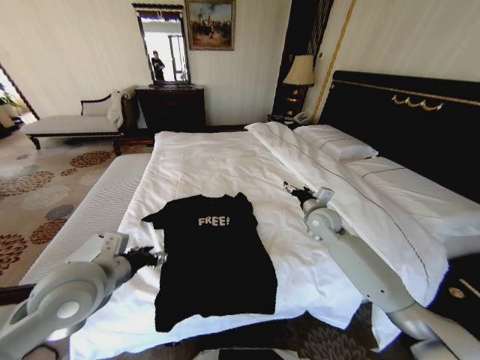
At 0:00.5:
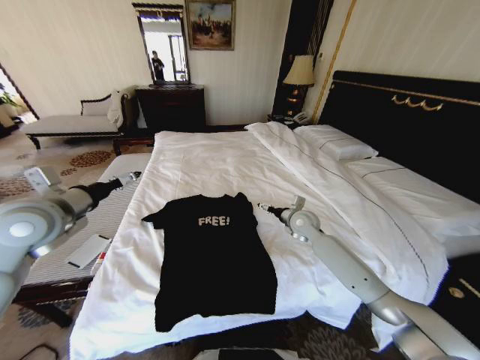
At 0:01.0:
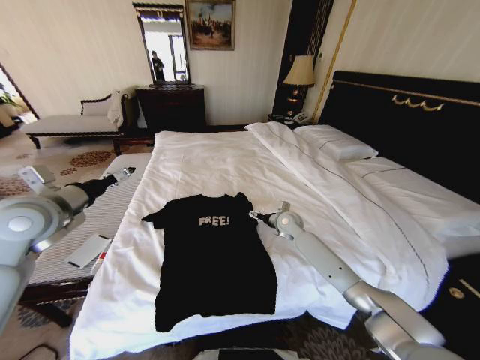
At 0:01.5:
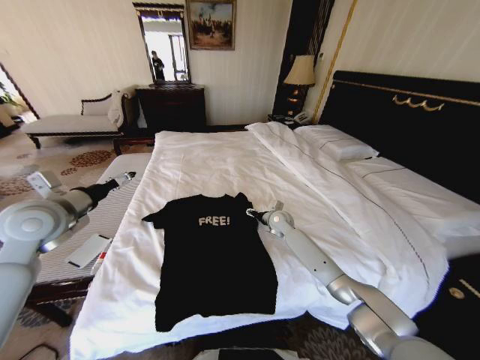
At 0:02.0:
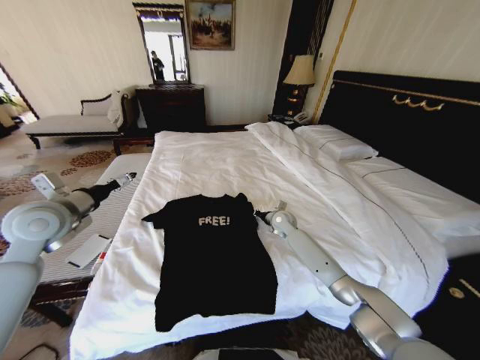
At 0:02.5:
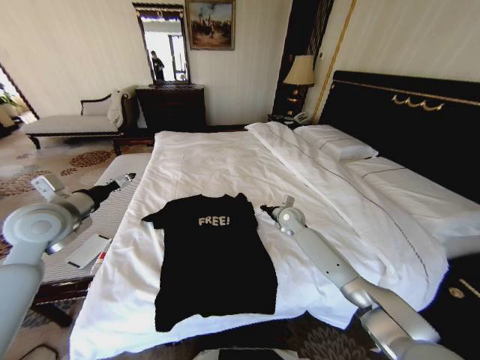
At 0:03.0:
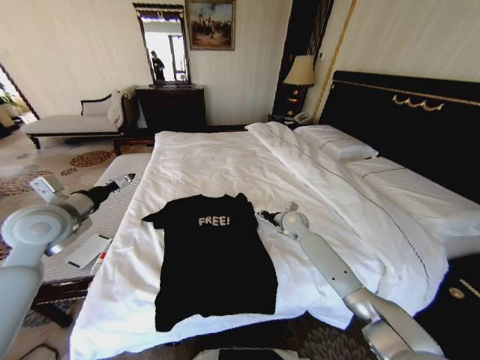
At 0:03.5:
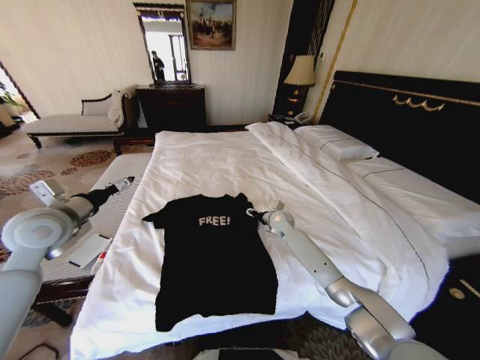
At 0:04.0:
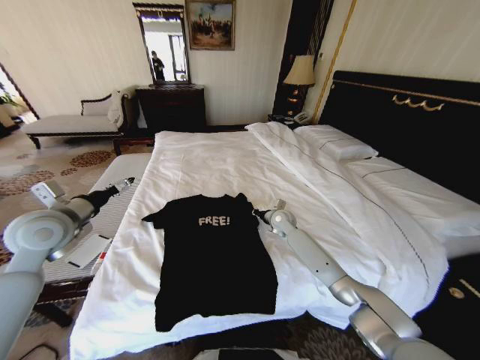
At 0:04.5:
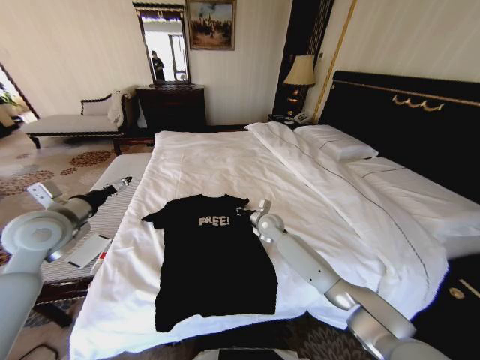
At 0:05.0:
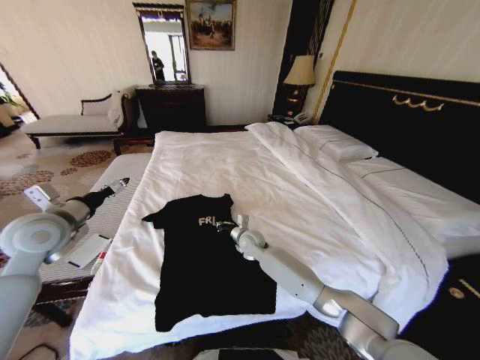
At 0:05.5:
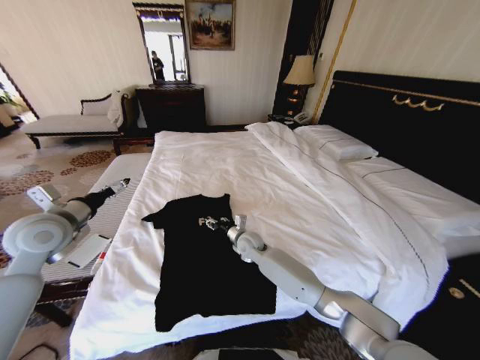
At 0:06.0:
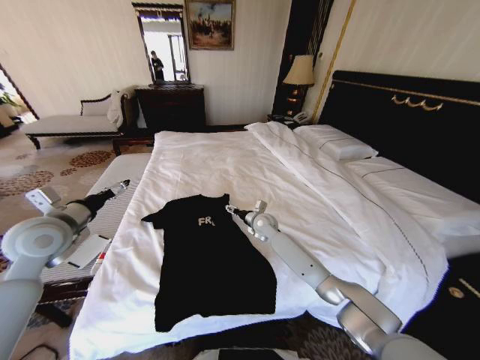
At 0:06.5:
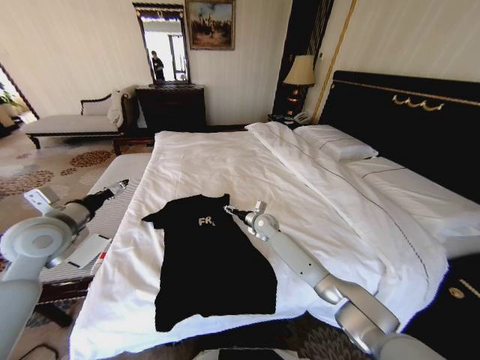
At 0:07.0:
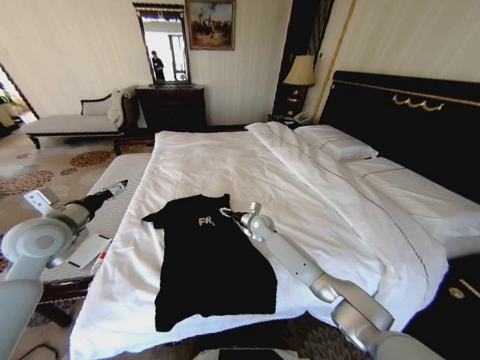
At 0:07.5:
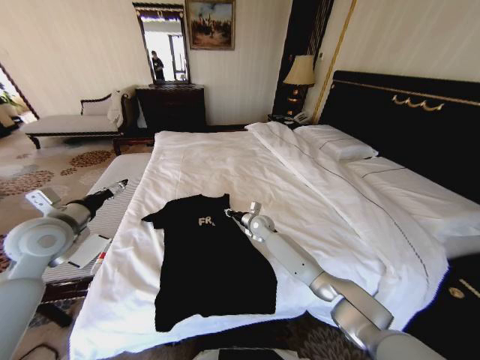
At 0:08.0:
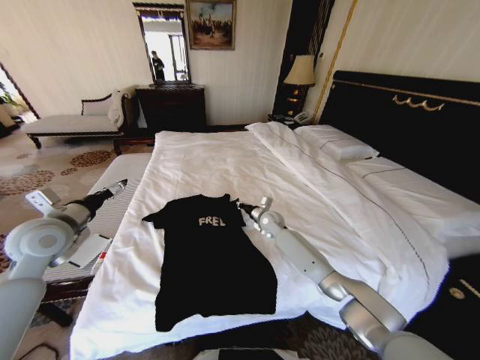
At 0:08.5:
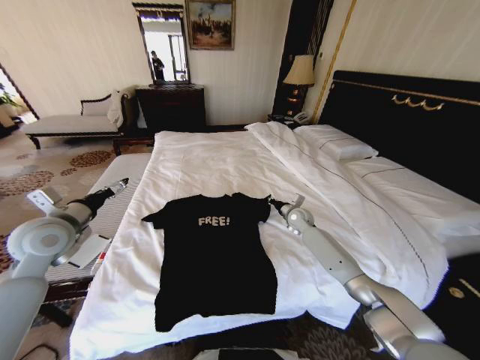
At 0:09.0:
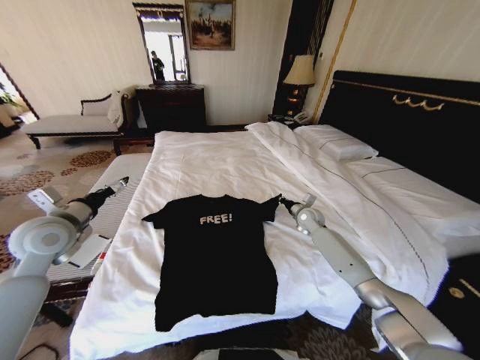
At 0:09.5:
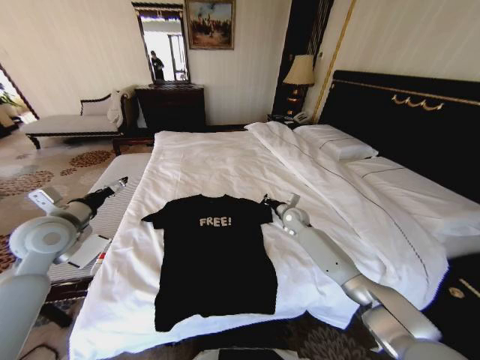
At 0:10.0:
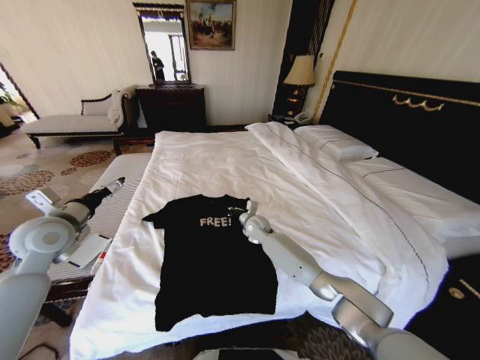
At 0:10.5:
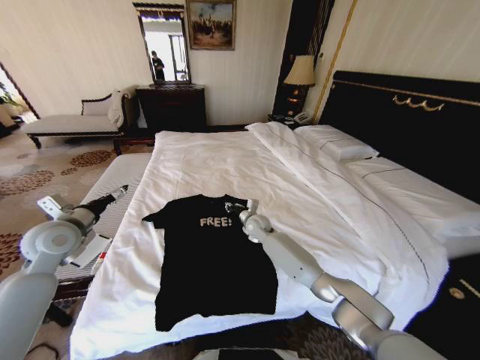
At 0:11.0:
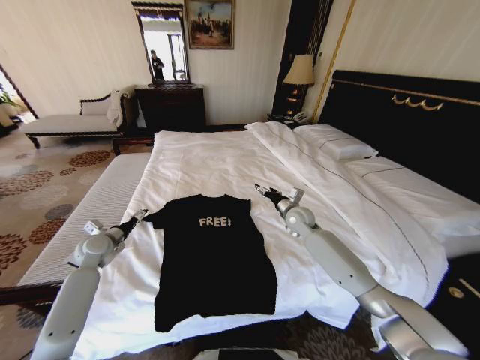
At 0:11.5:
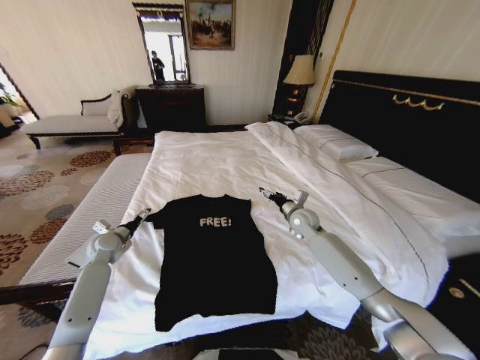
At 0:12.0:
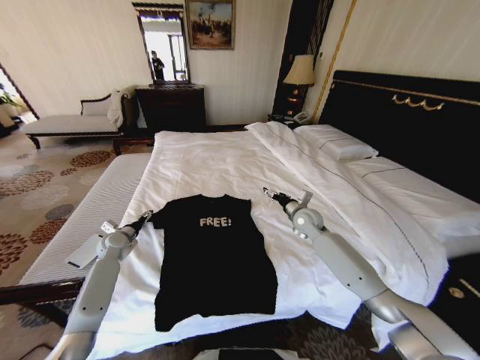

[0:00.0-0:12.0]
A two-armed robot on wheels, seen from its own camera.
Task of the whole recording: Fold the clothes on the bed.
0:00.0 to 0:02.0: The left gripper shifts roughly 15 cm to the left and forward, and opens. The right gripper shifts some 15 cm downward, to the left and forward, and closes its fingers.
0:04.0 to 0:06.0: The right gripper goes about 5 cm to the left, and opens.
0:06.0 to 0:08.0: The right gripper closes.
0:08.0 to 0:10.0: The right gripper goes to the right and returns, about 15 cm each way.
0:10.0 to 0:12.0: The right gripper travels to the right by approximately 15 cm, and opens up, while the left gripper heads downward and forward, covering about 25 cm.

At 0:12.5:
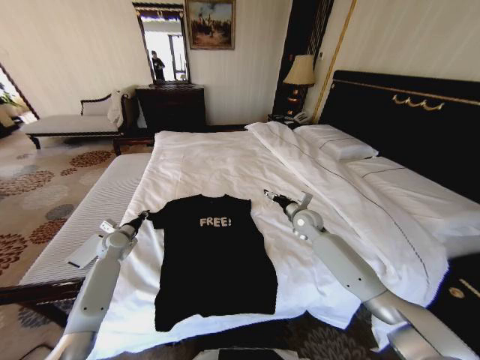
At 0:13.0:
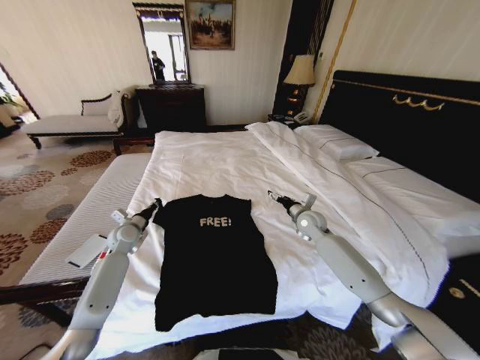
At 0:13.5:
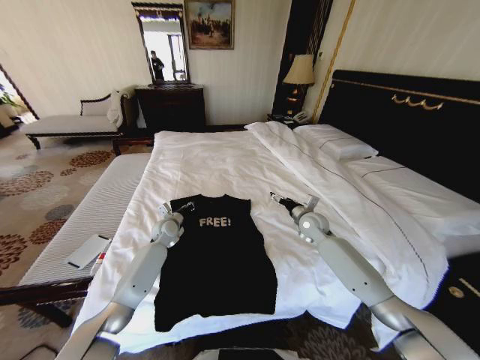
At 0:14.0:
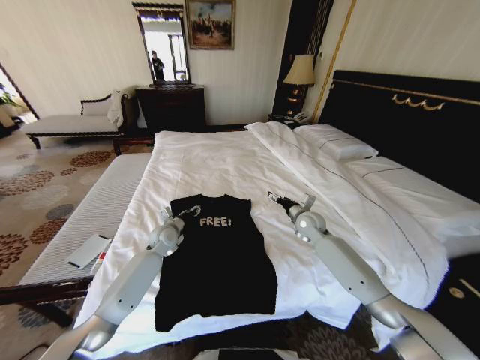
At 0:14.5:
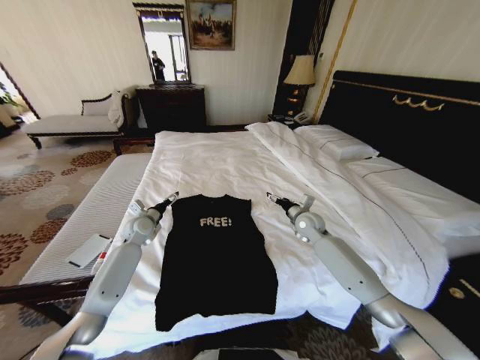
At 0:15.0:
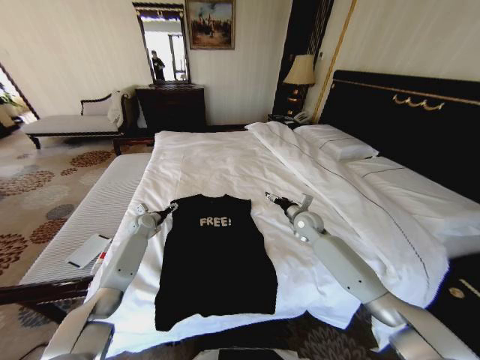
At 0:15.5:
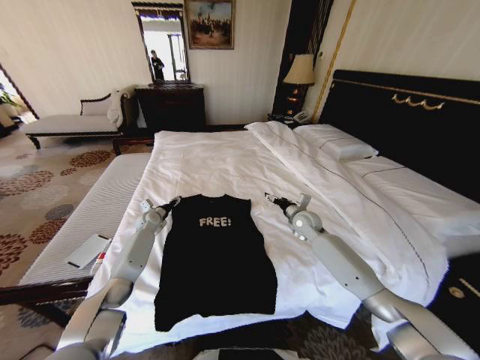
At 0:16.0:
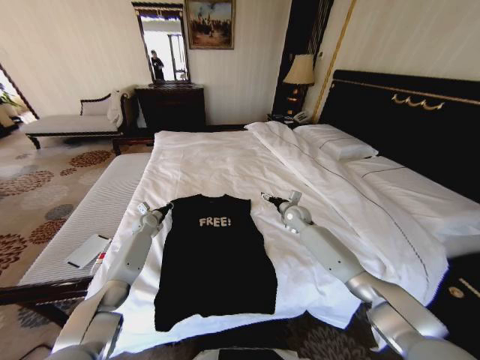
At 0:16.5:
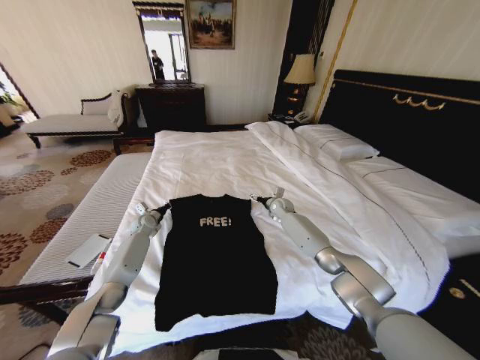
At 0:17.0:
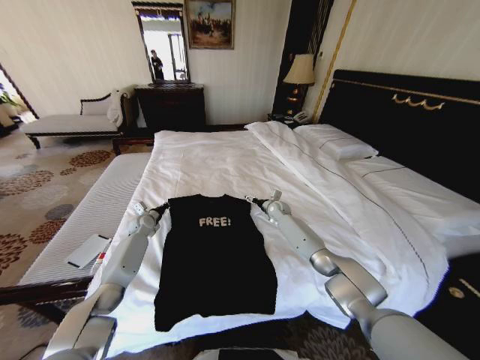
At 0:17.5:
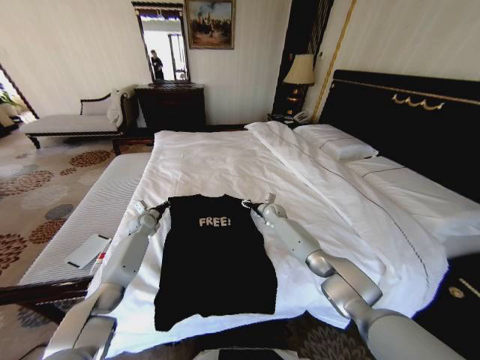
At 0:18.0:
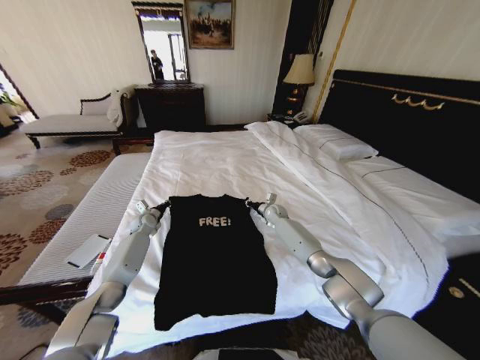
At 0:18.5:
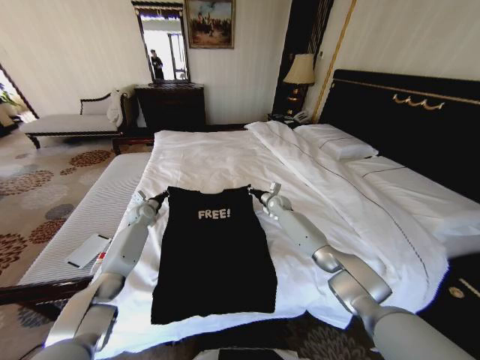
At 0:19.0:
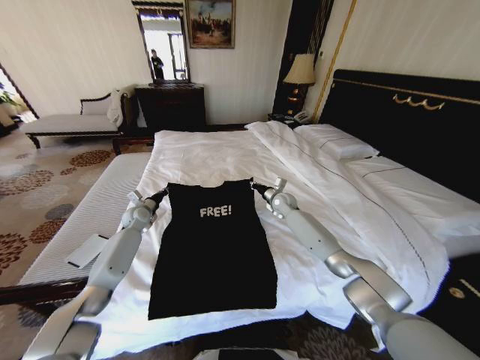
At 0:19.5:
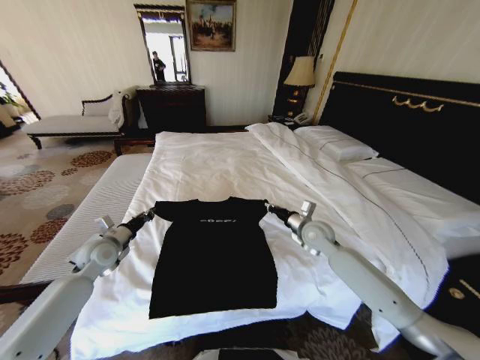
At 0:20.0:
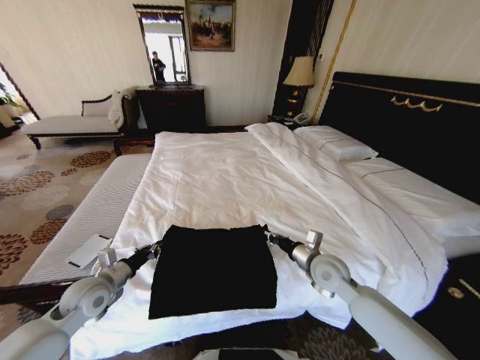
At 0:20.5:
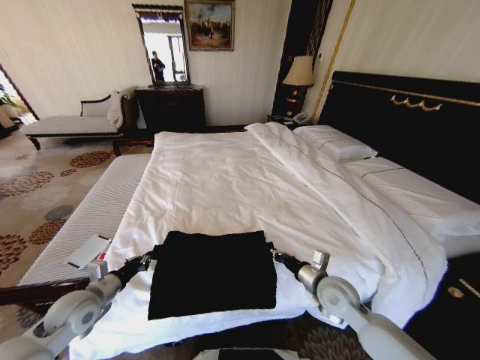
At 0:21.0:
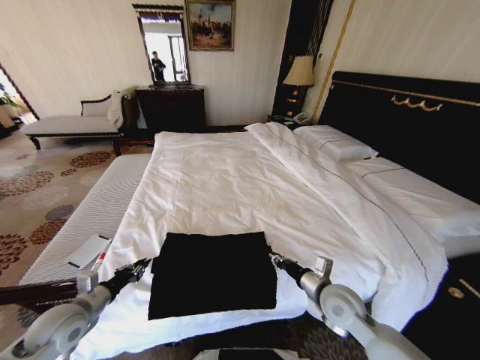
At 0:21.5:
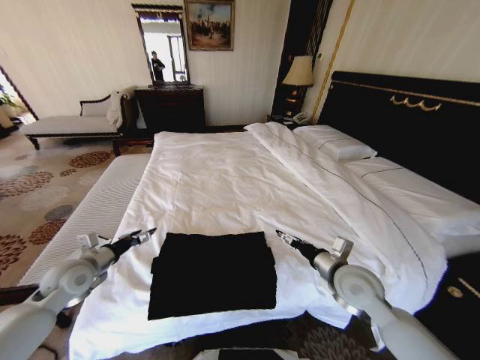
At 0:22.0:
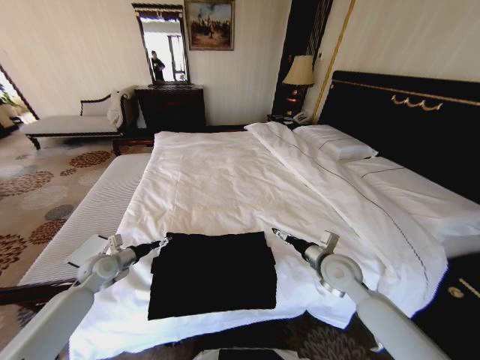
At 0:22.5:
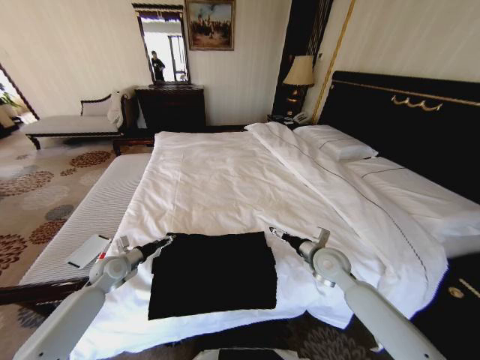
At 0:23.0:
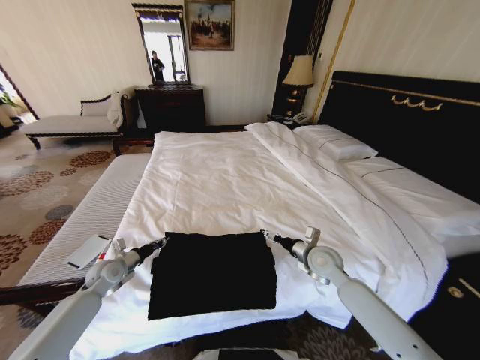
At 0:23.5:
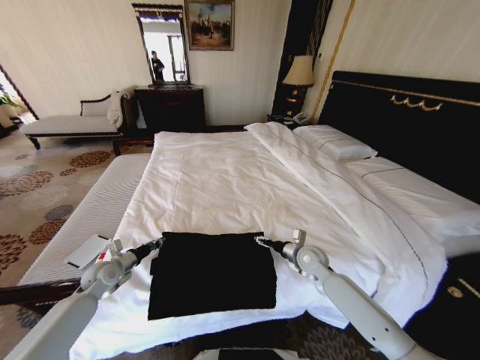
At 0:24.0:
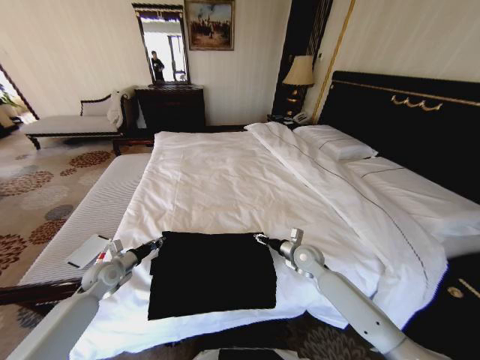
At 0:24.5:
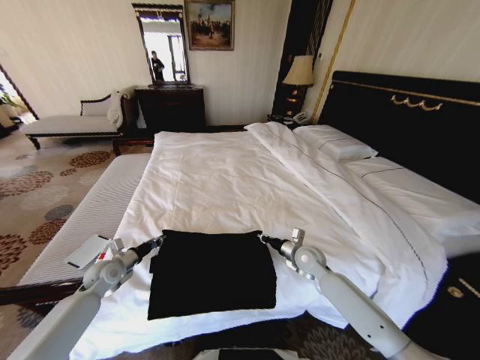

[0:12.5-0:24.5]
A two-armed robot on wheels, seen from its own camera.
Task of the whole recording: Fold the clothes on the bed.
0:12.5 to 0:14.5: The left gripper moves to the right, approximately 10 cm, and opens its fingers.
0:14.5 to 0:16.5: The left gripper shifts approximately 10 cm downward and forward, and closes its fingers. Meanwhile the right gripper shifts some 15 cm forward and to the left.
0:16.5 to 0:18.5: The right gripper closes up.
0:18.5 to 0:20.5: The grippers both shift backward by roughly 35 cm.
0:20.5 to 0:22.5: The right gripper travels forward by roughly 5 cm, and opens up. Meanwhile the left gripper shifts approximately 15 cm forward and downward, and opens up.
0:22.5 to 0:24.5: The left gripper closes its fingers. Meanwhile the right gripper shifts approximately 5 cm downward, and closes its fingers.

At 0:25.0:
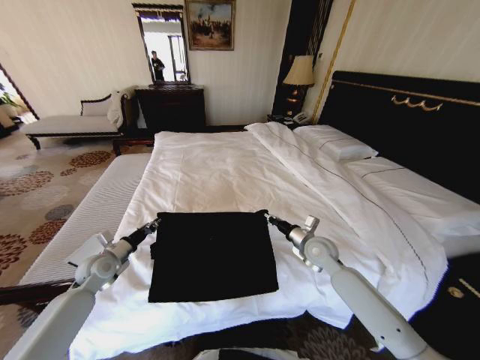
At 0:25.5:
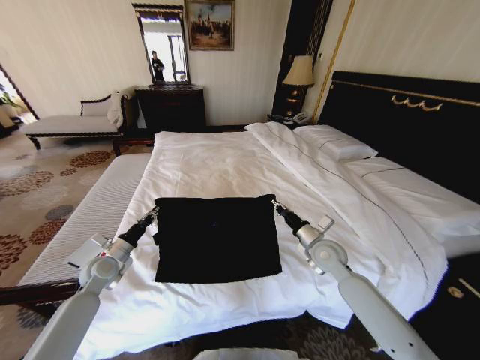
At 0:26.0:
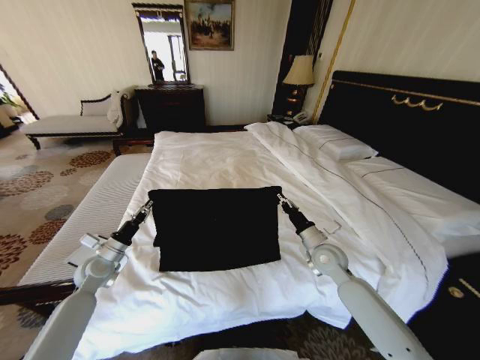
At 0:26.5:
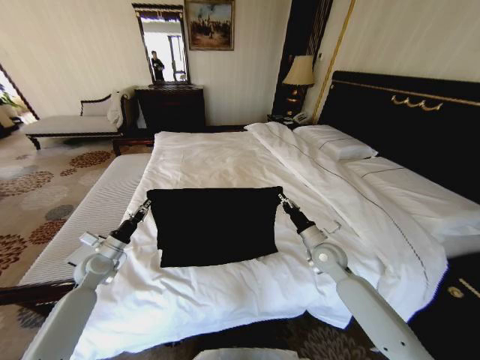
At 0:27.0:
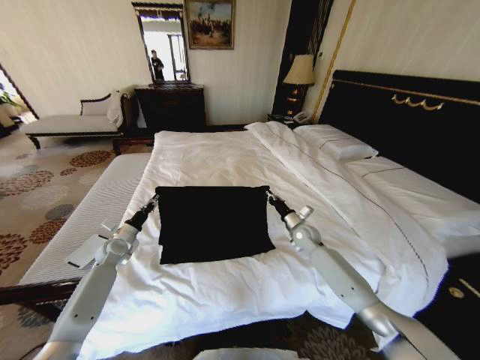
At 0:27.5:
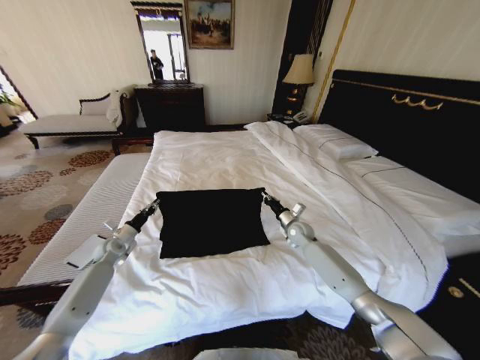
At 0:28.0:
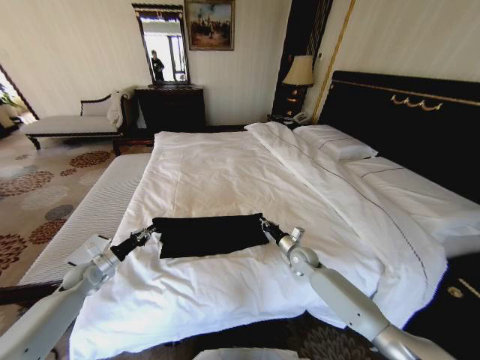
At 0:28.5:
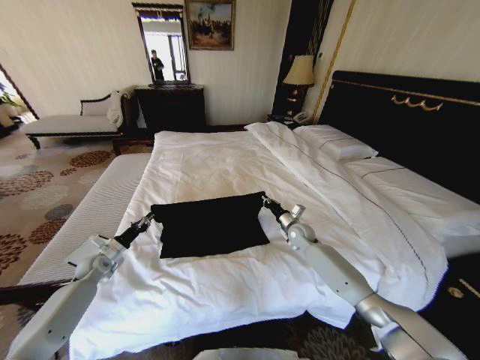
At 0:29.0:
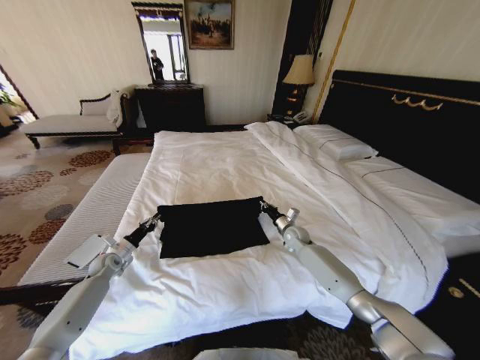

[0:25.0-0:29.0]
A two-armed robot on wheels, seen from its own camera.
Task of the whole recording: Fold the clothes on the bed.
0:25.0 to 0:27.0: The right gripper heads forward and downward, covering roughly 10 cm, while the left gripper shifts about 10 cm forward.
0:27.0 to 0:29.0: The right gripper reaches roughly 5 cm backward, then returns. Meanwhile the left gripper travels downward by roughly 5 cm, and travels backward and back again, some 10 cm each way.
